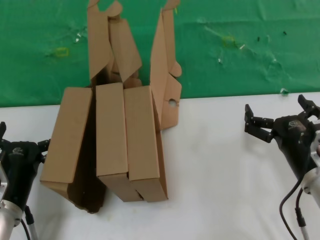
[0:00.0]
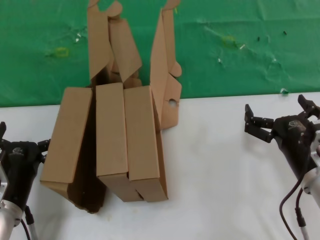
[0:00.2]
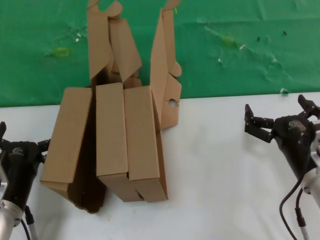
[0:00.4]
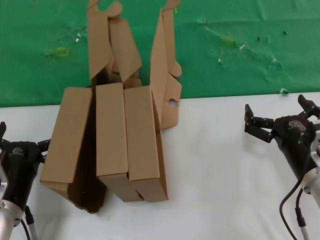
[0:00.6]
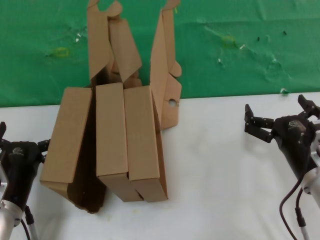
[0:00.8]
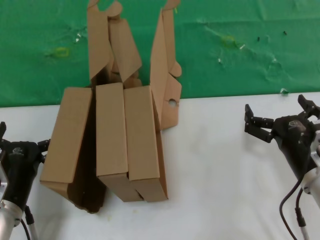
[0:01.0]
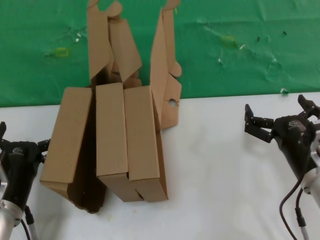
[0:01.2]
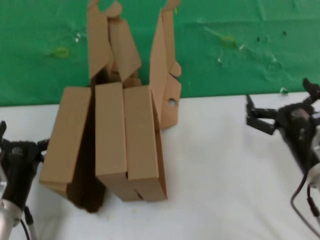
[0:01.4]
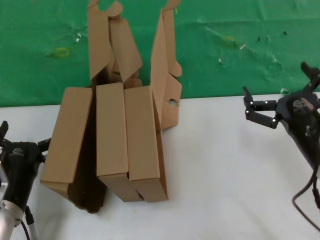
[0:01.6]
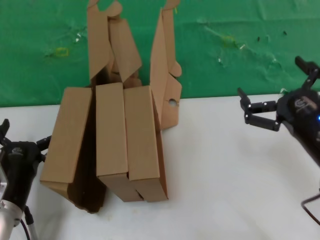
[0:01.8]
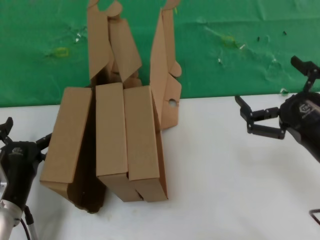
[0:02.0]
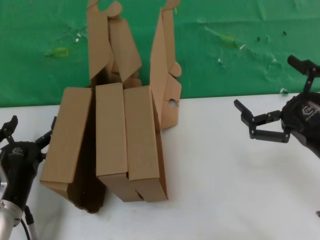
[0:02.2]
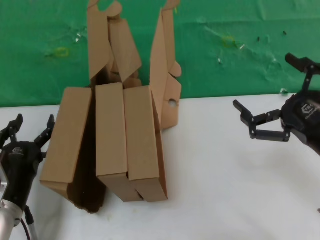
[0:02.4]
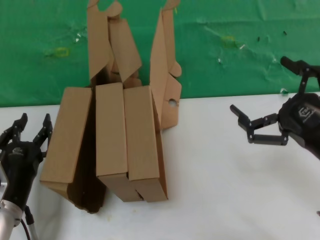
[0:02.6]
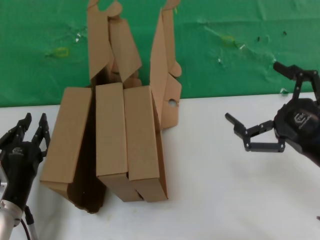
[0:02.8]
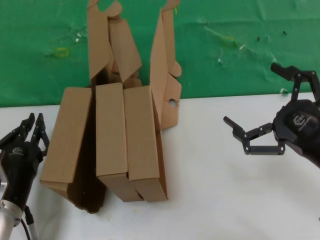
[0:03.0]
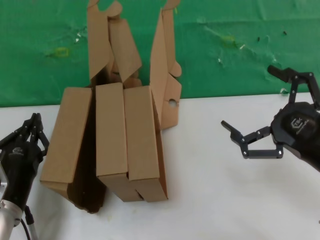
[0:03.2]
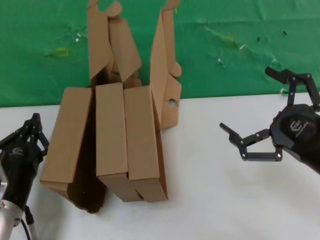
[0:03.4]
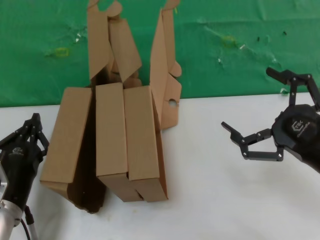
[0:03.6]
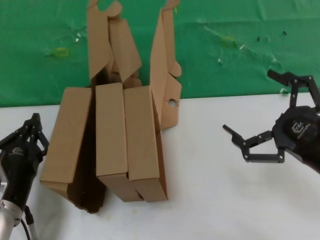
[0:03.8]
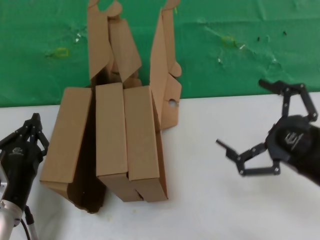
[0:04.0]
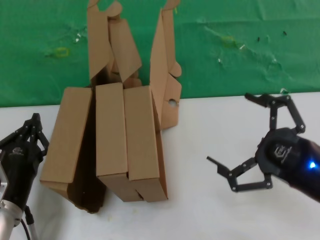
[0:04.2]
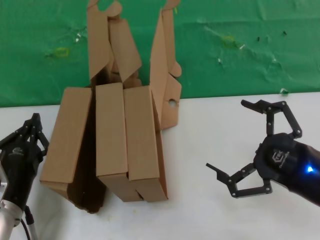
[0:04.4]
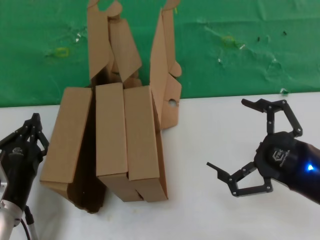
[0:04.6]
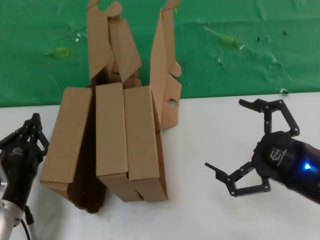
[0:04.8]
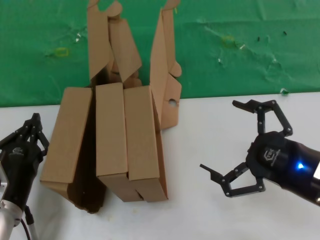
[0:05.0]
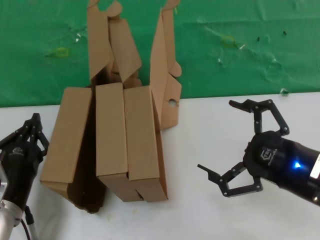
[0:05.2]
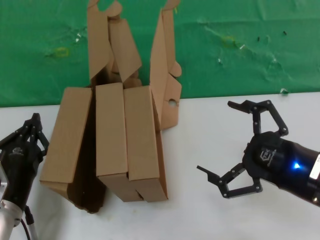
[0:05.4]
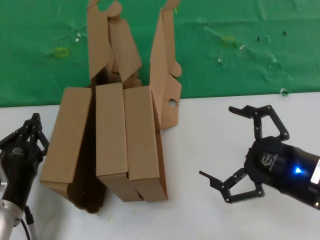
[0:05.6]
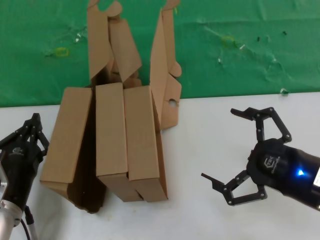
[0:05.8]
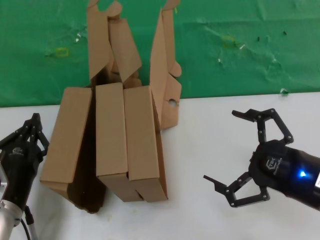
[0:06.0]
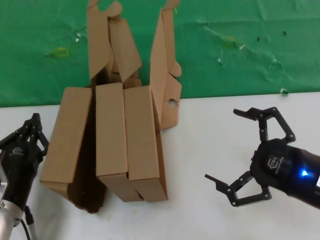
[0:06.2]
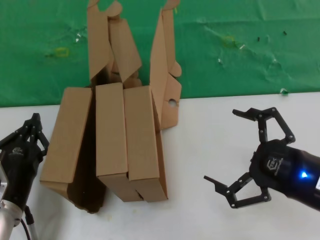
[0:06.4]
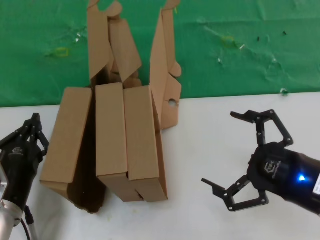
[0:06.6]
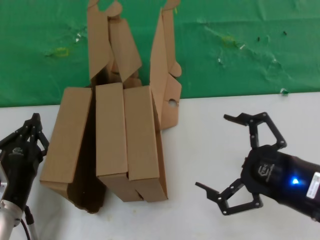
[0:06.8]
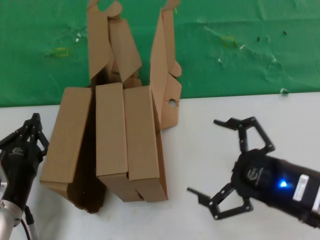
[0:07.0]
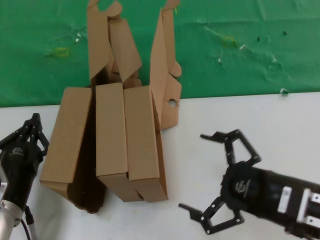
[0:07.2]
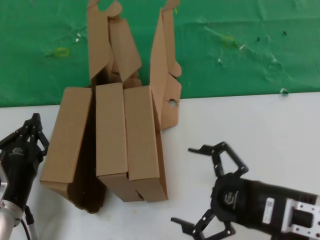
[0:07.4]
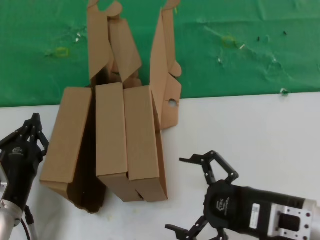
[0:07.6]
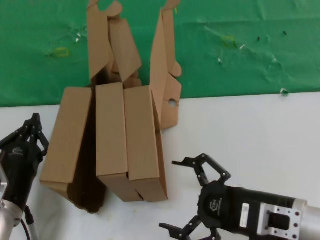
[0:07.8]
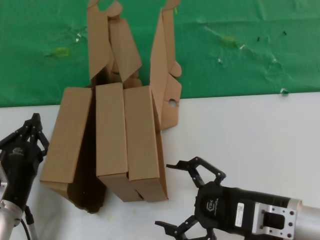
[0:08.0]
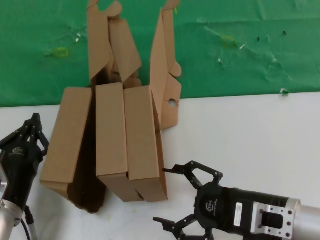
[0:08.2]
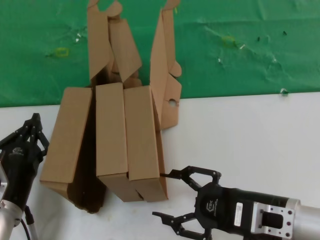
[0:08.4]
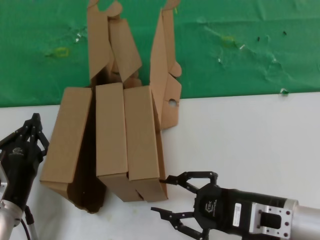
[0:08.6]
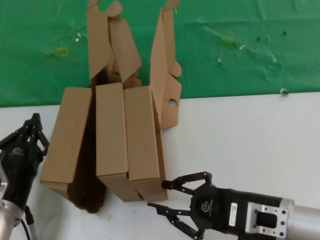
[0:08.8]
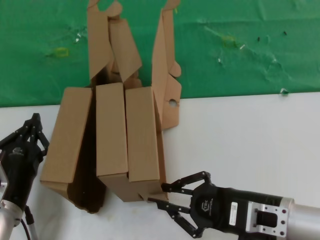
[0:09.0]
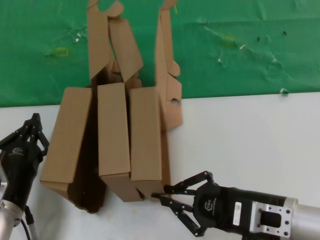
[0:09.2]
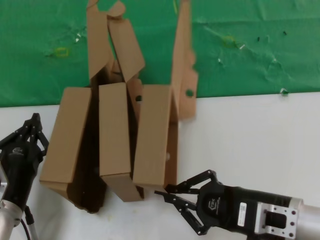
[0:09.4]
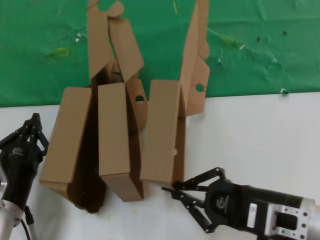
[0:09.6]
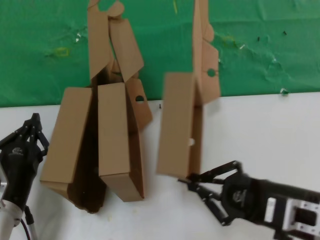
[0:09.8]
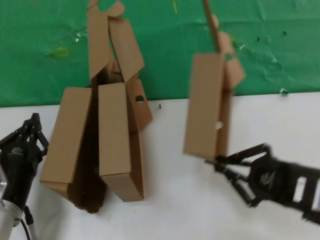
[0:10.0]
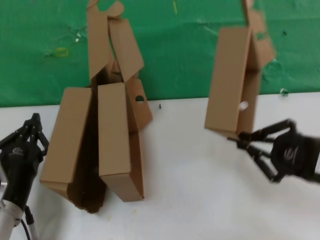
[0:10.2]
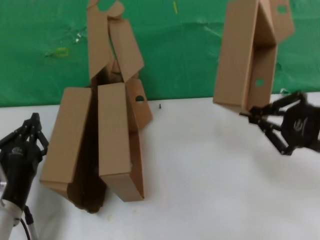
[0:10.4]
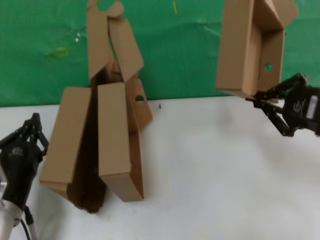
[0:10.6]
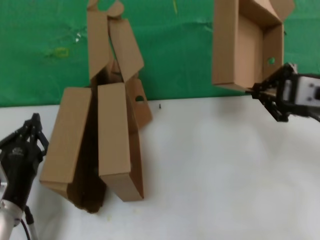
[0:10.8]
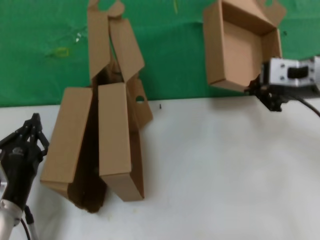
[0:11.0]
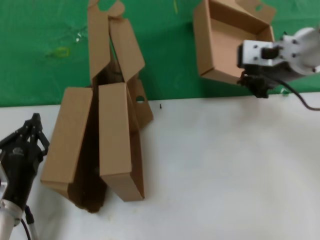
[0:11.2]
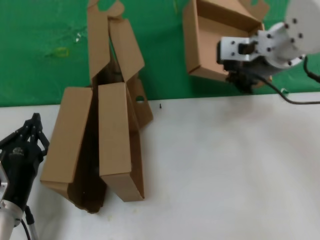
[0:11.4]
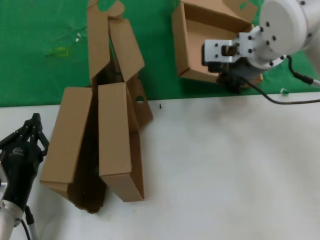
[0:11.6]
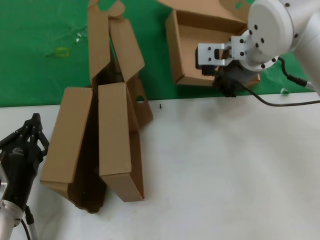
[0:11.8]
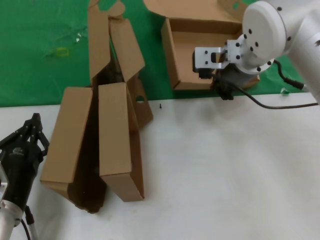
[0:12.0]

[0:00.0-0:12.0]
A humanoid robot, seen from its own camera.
Task of the whole recording: pick up the paper box and put it at the back.
Step, 0:00.0 to 0:09.2: Grasp the paper box.
0:00.0 to 0:01.6: The right hand ends up roughly 5 cm from where it was.
0:01.6 to 0:03.0: The right hand goes about 5 cm to the right.
0:03.0 to 0:06.0: The hands move only a little.
0:06.0 to 0:07.6: The right hand is displaced to the left by roughly 5 cm.
0:07.6 to 0:09.0: The hands move only a little.
0:09.0 to 0:10.4: The right hand heads upward and to the right, covering about 15 cm.
0:10.4 to 0:12.0: The right hand goes about 30 cm forward and to the left.

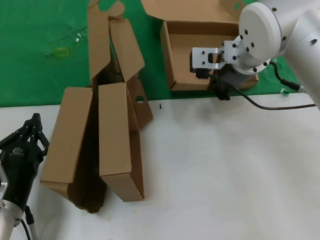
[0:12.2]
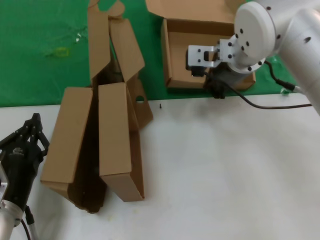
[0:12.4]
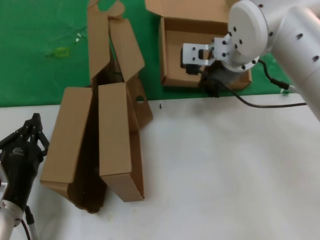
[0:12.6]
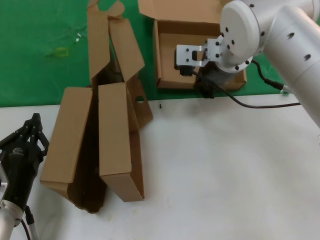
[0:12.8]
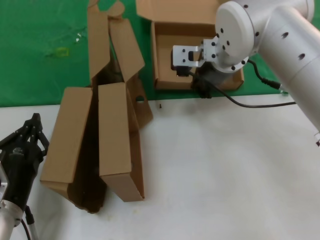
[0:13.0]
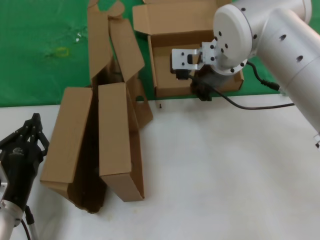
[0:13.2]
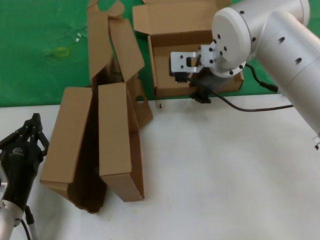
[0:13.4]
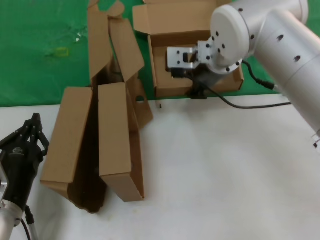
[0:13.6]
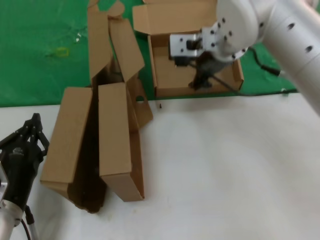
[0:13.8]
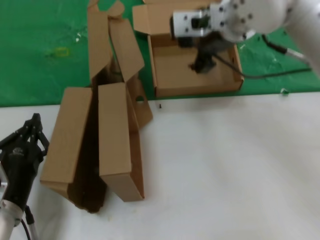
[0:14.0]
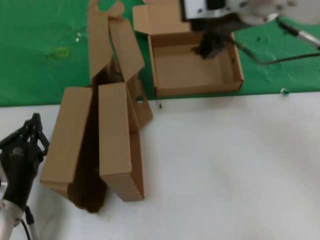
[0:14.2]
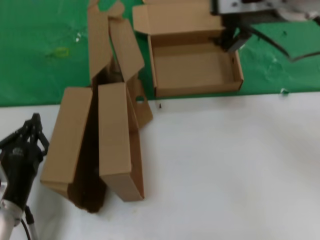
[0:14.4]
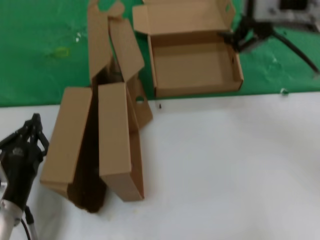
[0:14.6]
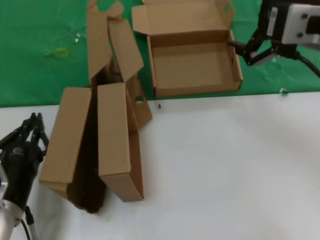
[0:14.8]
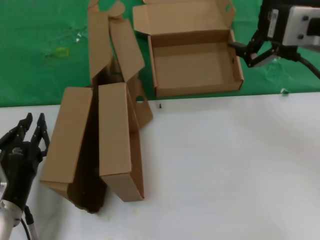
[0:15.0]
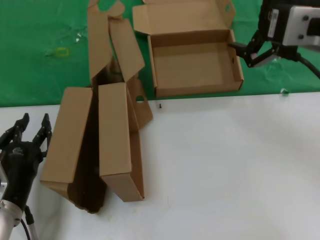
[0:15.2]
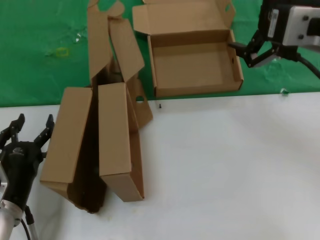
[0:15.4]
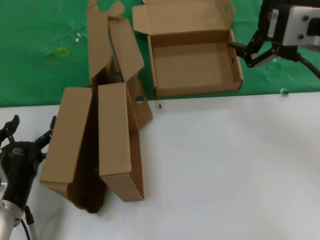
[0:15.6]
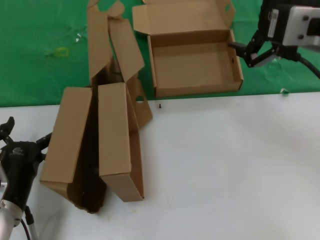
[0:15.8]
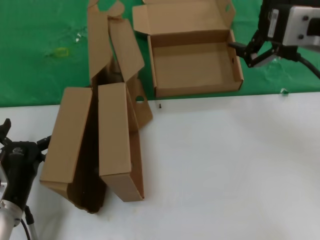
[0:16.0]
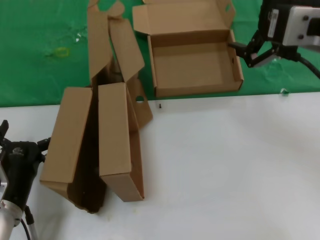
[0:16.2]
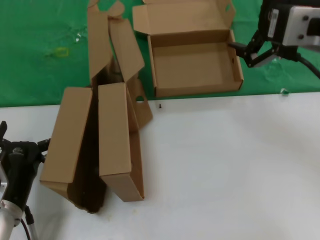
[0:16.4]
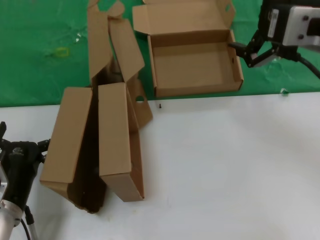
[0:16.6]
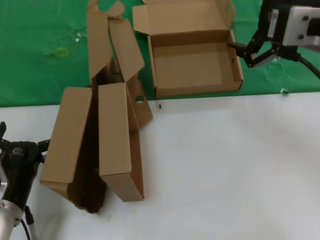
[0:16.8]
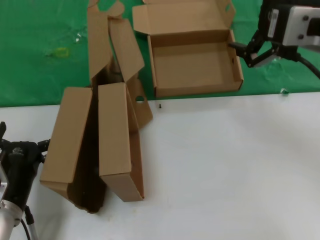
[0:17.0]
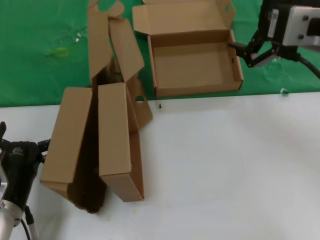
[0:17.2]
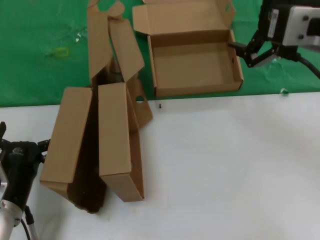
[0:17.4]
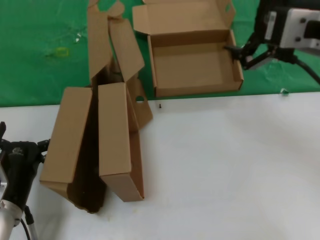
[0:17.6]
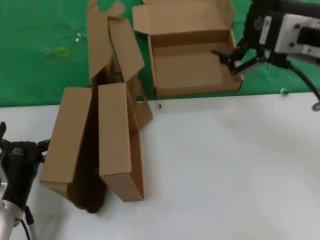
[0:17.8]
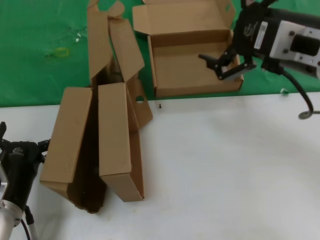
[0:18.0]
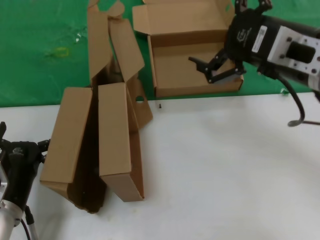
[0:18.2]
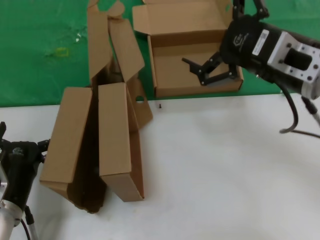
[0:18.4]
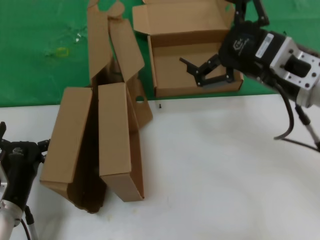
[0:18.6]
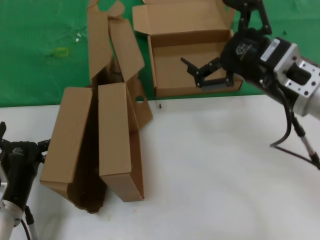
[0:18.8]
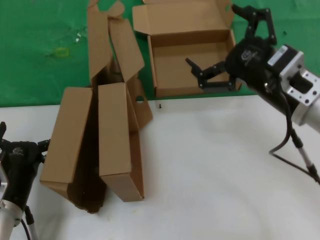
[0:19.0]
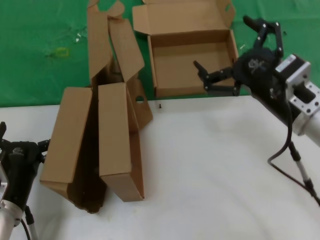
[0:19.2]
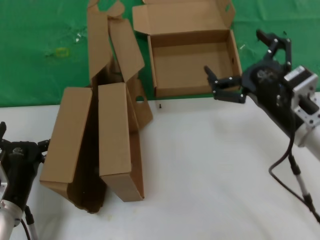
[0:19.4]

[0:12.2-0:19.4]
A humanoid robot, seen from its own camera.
Task of the whole recording: pick up the paper box and put it at the back.
0:12.2 to 0:13.6: The hands stay close to where they were, moving slightly.
0:13.6 to 0:15.0: The right hand heads backward and to the right, covering some 25 cm.
0:15.0 to 0:16.6: Both hands stay about where they are.
0:16.6 to 0:18.0: The hands make only small movements.
0:18.0 to 0:19.4: The right hand heads downward, covering approximately 15 cm.
